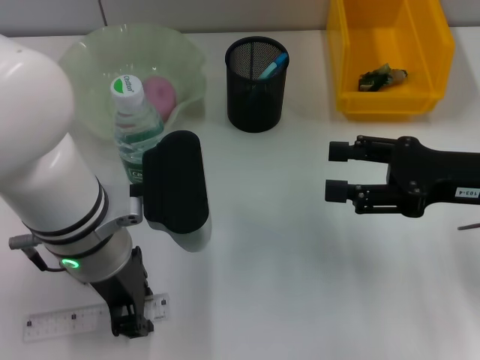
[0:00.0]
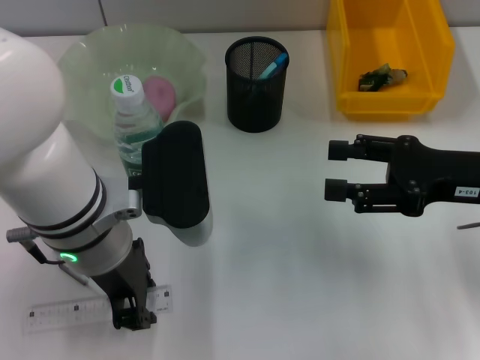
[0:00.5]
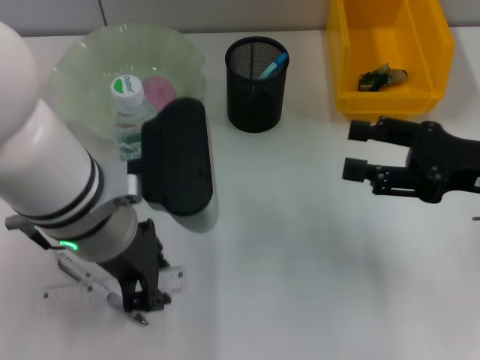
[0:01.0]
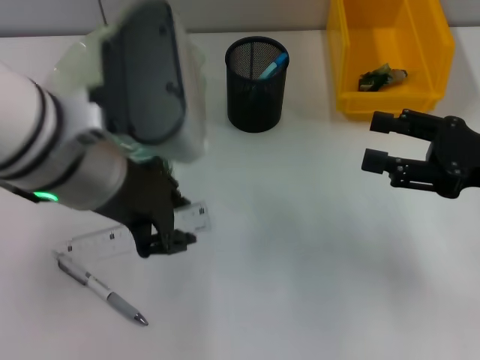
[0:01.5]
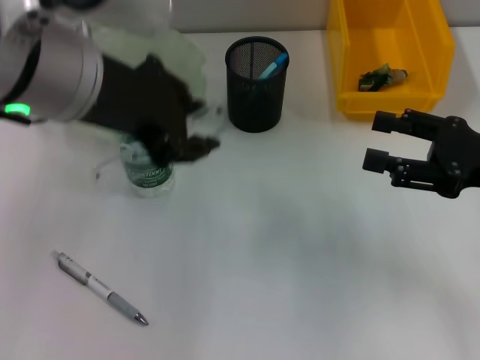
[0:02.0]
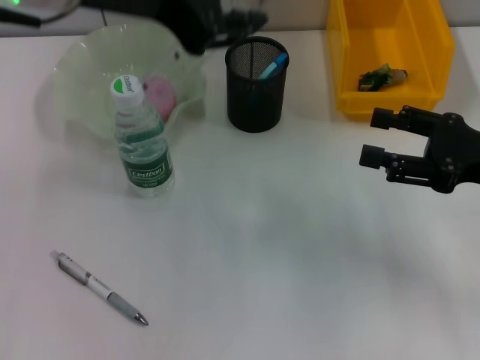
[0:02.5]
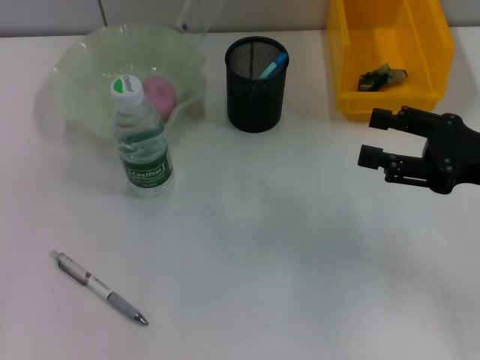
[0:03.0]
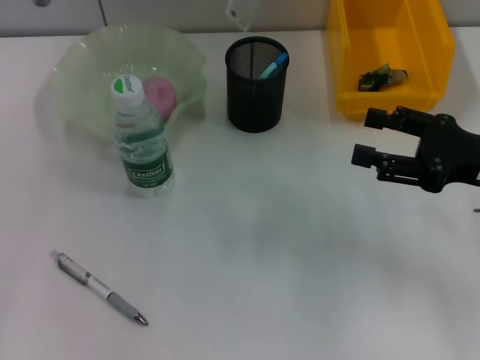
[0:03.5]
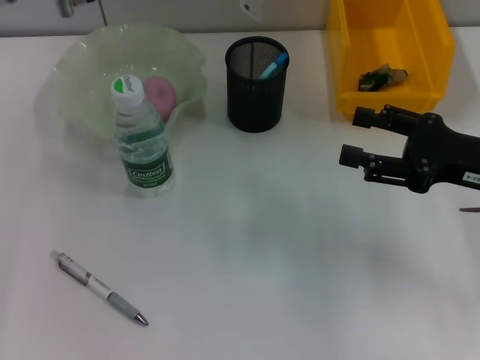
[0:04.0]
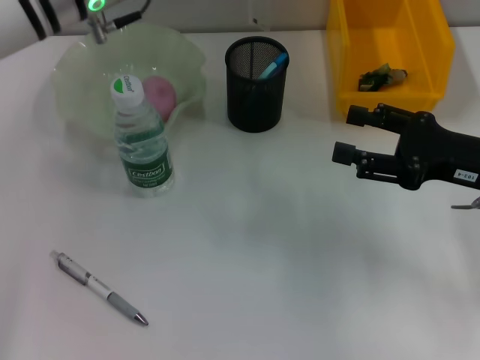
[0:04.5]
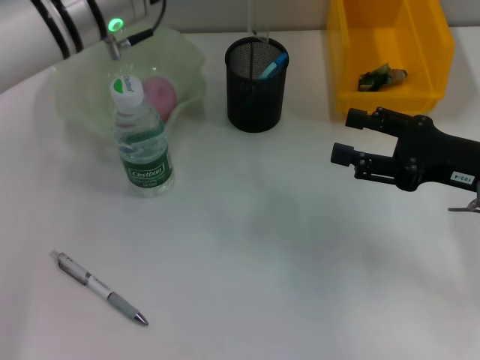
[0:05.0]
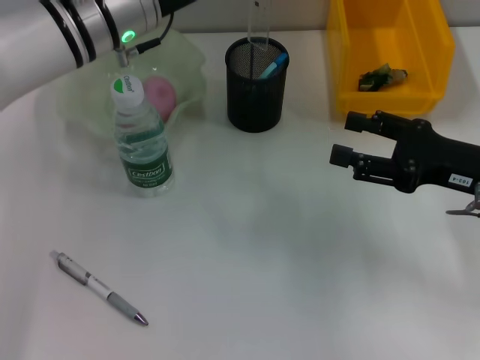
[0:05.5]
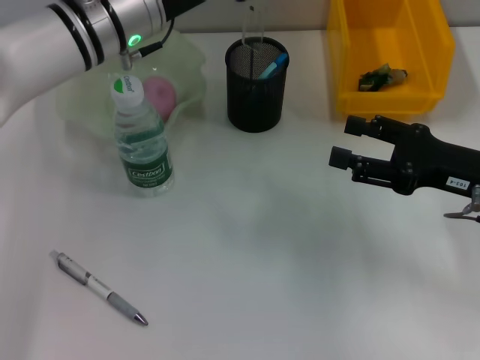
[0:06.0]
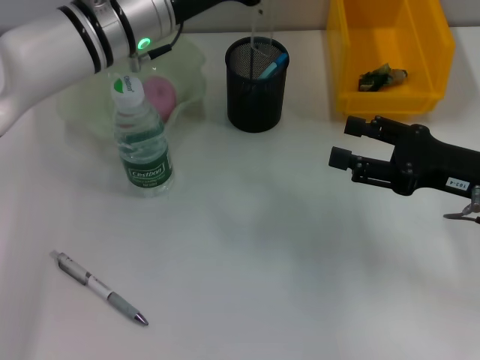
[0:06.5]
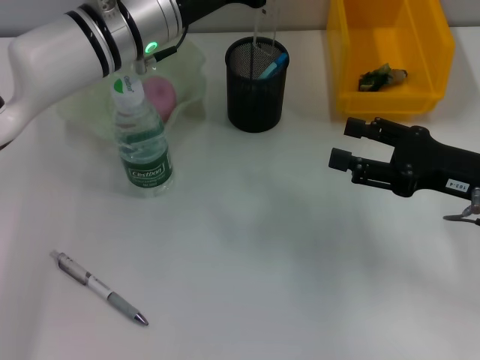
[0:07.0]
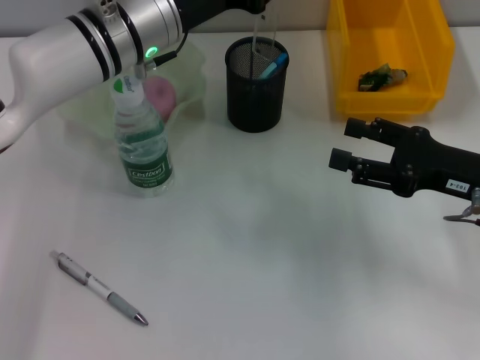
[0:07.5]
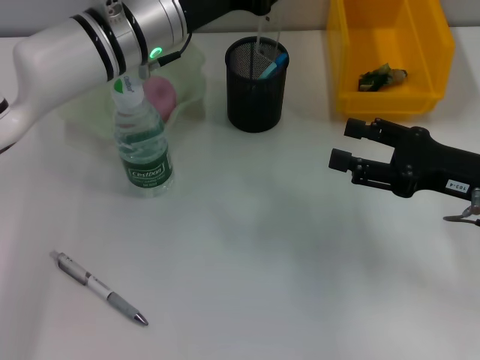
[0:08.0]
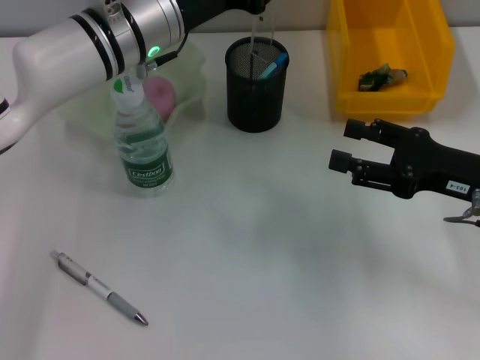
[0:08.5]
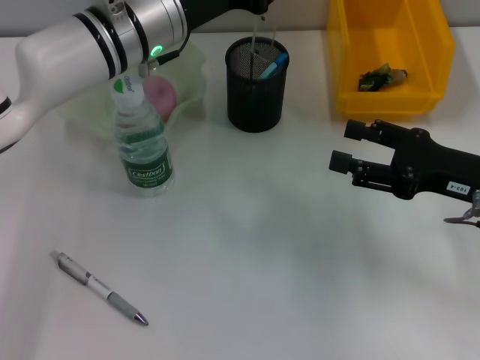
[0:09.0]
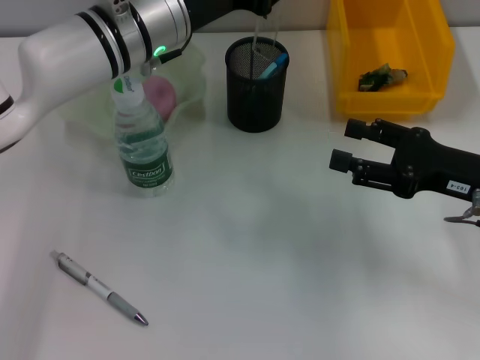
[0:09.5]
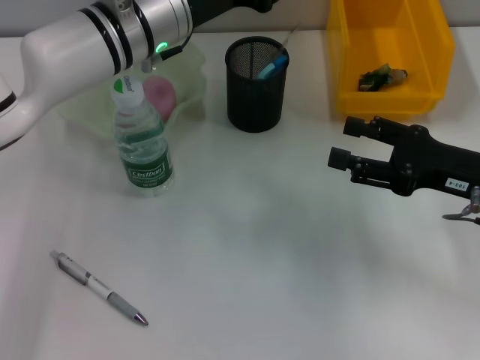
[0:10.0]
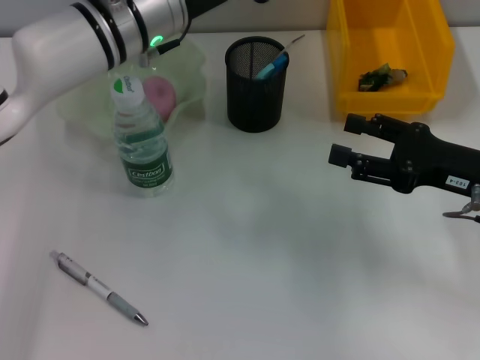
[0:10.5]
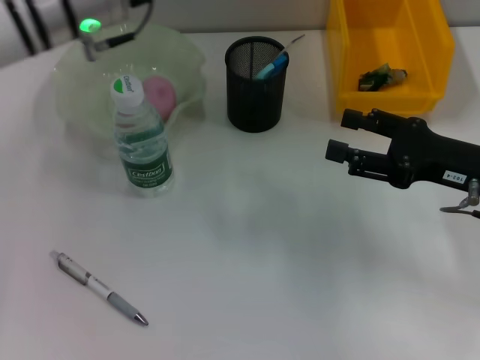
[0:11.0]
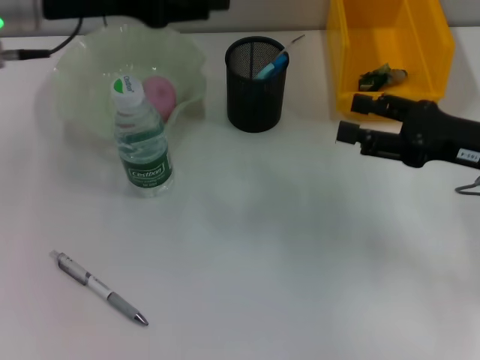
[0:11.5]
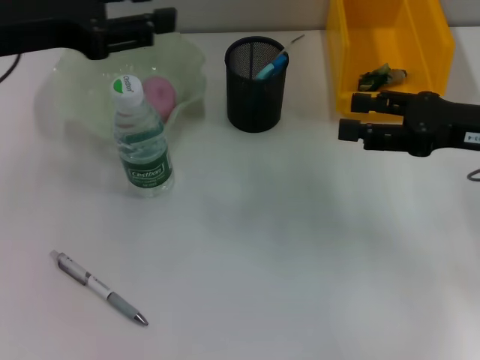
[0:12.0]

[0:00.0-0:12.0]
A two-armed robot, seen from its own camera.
Step, 0.5 to 10.5 s: Place the ruler into the pen holder with the left hand.
0.0 to 2.0 s: The left gripper shifts some 15 cm upward.
2.0 to 4.0 s: The left gripper moves forward, some 10 cm.
4.0 to 6.0 s: The left gripper goes about 10 cm downward.
6.0 to 8.0 s: The grippers make only small movements.
8.0 to 10.0 s: Both grippers stay put.
10.0 to 12.0 s: The right gripper goes some 5 cm upward. Meanwhile the left gripper travels to the left, backward and upward by about 20 cm.

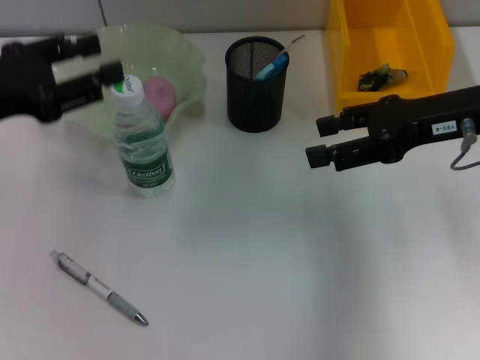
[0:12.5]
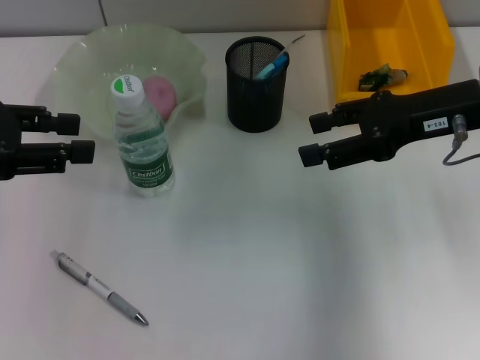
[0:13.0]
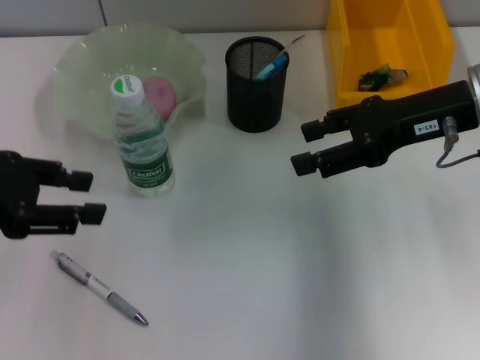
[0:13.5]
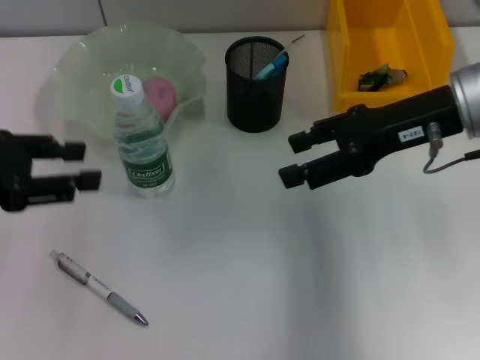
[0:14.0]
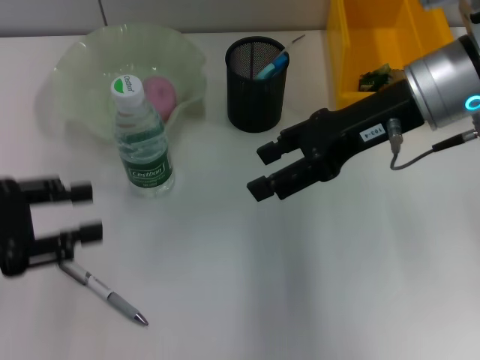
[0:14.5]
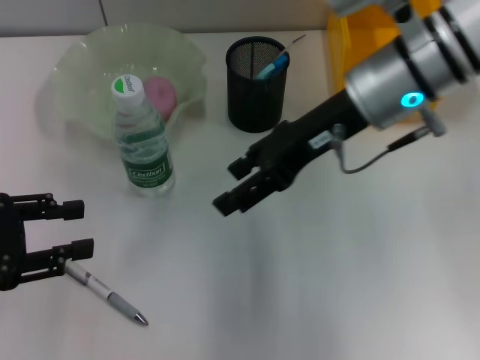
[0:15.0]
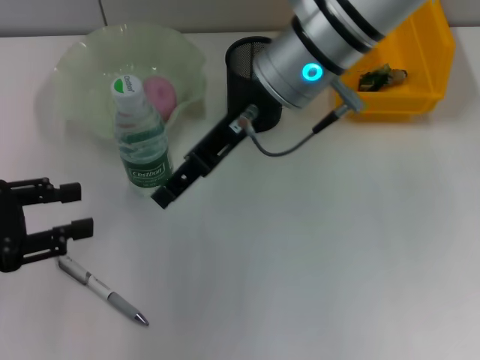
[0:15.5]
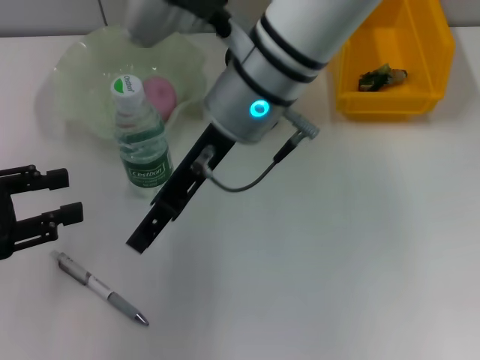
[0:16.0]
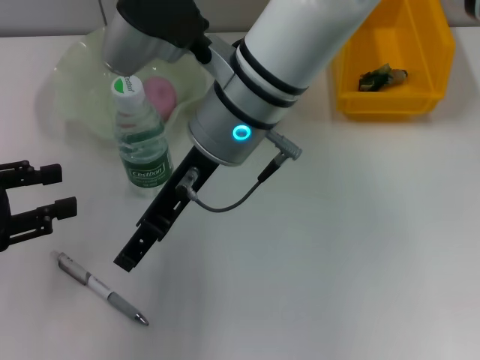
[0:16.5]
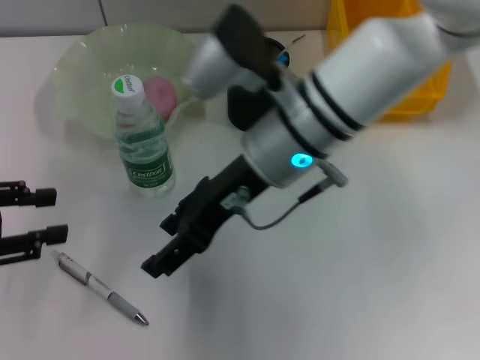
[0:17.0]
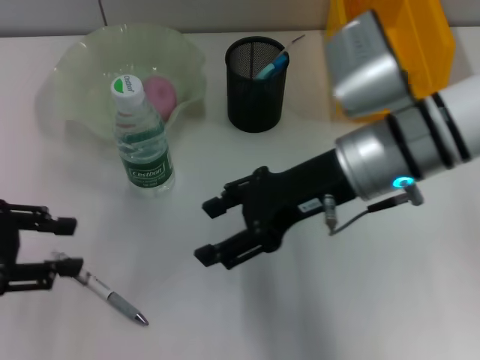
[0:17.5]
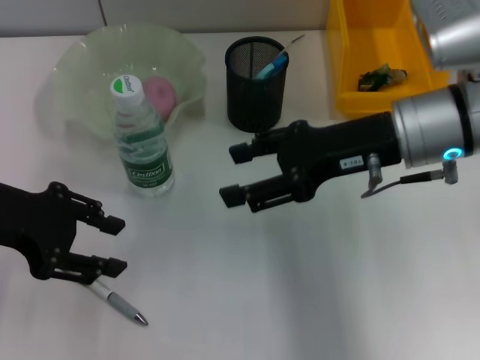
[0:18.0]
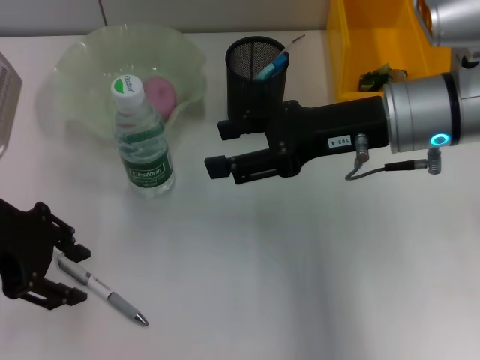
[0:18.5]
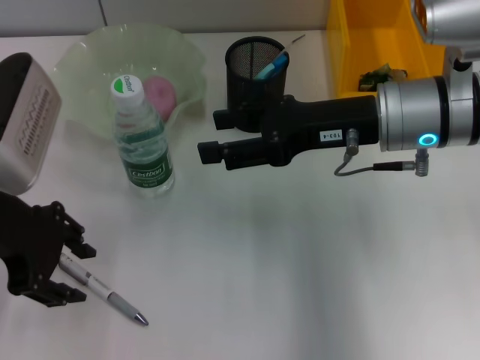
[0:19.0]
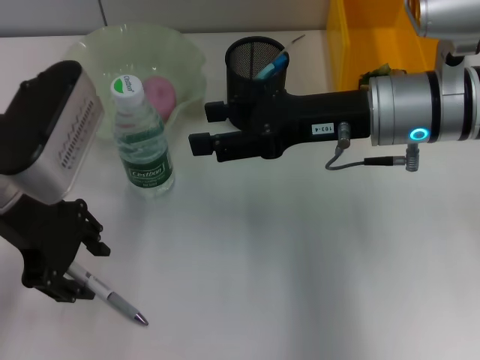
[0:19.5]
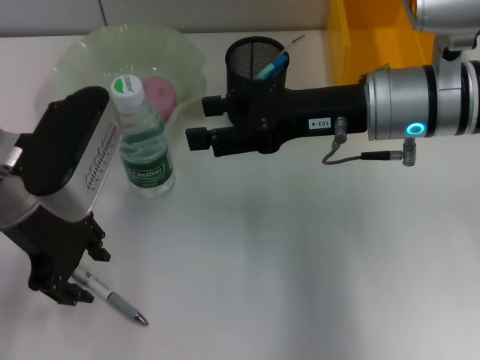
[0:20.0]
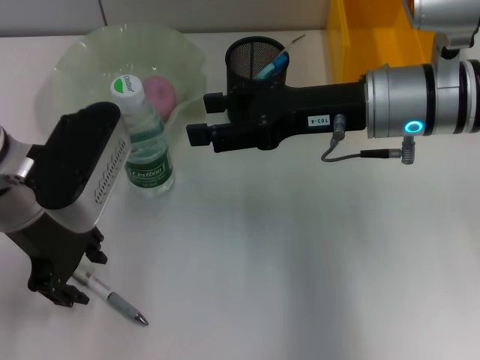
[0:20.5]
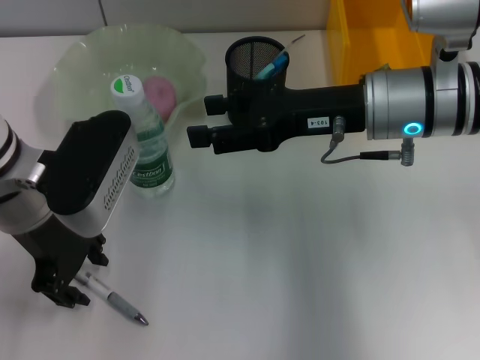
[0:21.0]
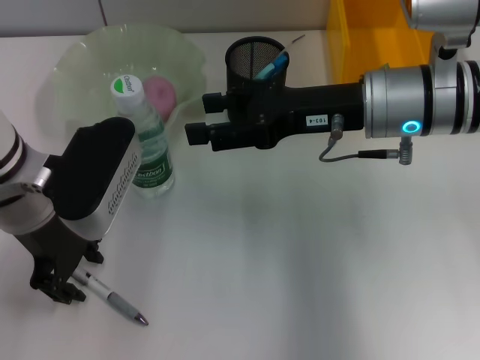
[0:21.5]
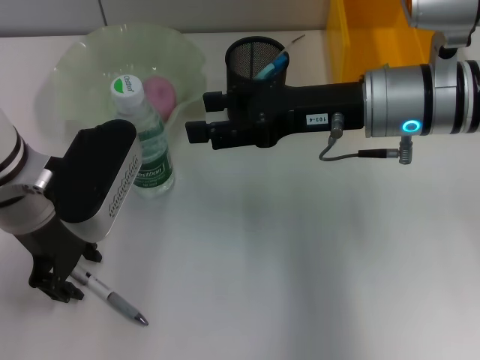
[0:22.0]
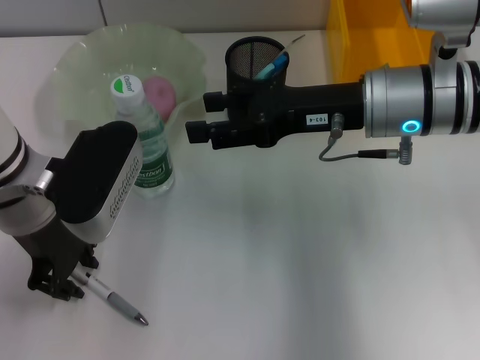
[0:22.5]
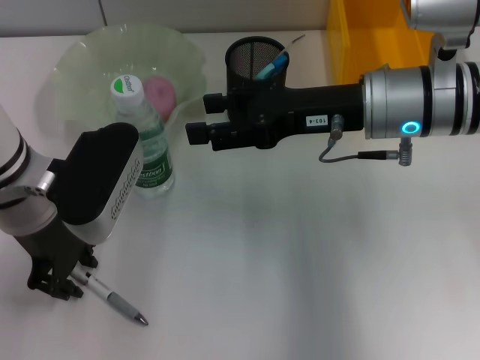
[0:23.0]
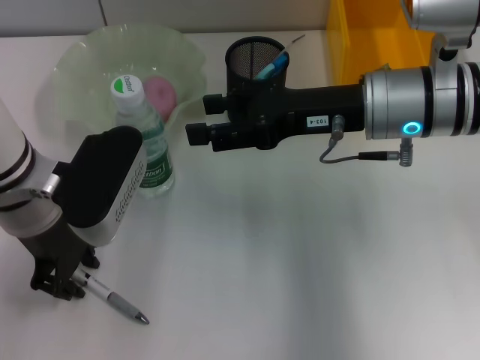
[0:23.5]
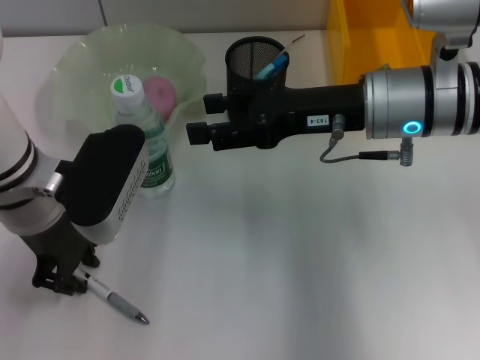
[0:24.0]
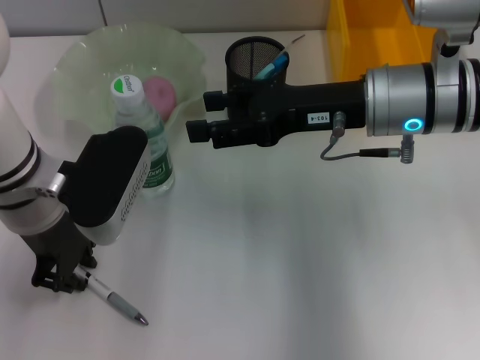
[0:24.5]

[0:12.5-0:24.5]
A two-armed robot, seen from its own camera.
12.5 to 14.5 s: The left gripper is displaced backward by some 5 cm. The right gripper travels to the left by roughly 5 cm.
14.5 to 16.5 s: The right gripper shifts roughly 20 cm to the left.
16.5 to 18.5 s: The right gripper heads to the right, covering about 15 cm; the left gripper heads to the right, upward and forward, covering roughly 10 cm.
18.5 to 20.5 s: The left gripper travels to the right by some 5 cm.
20.5 to 22.5 s: The grippers make only small movements.
22.5 to 24.5 s: Both grippers stay put.

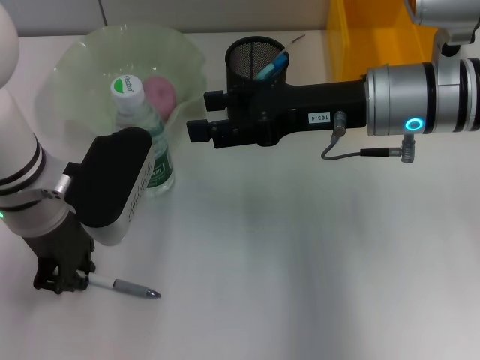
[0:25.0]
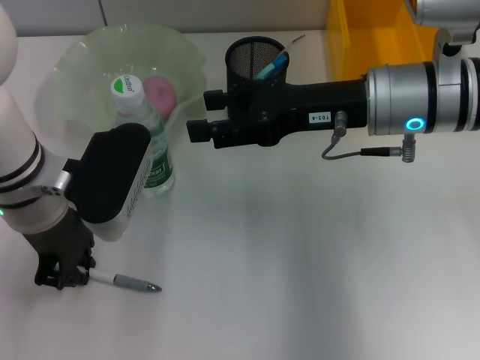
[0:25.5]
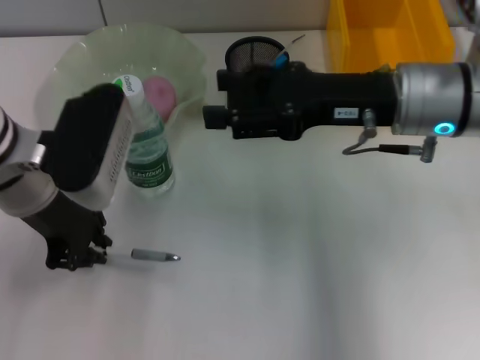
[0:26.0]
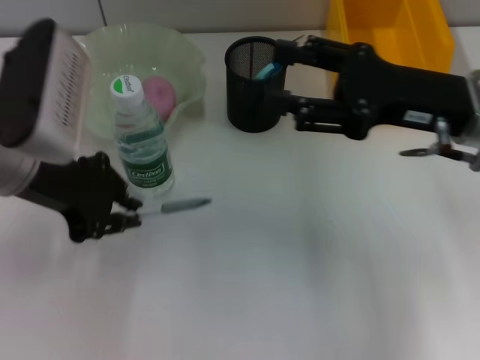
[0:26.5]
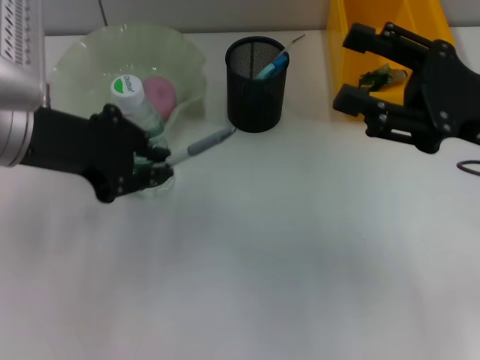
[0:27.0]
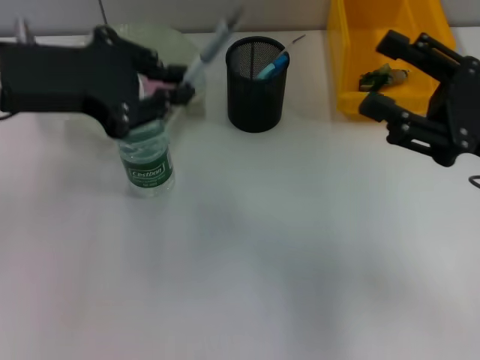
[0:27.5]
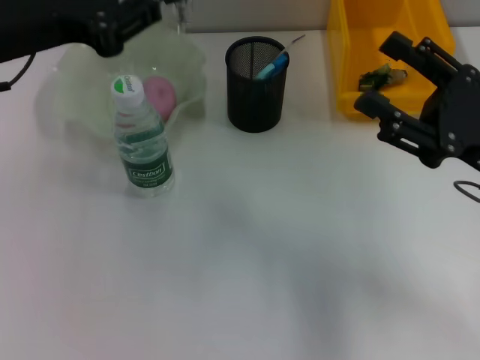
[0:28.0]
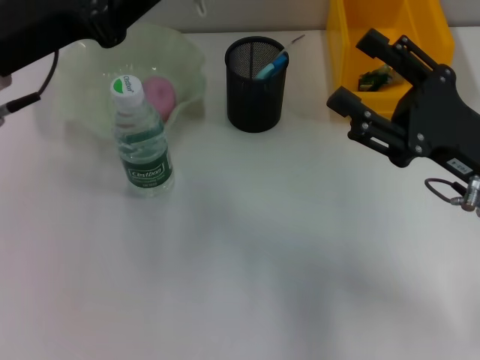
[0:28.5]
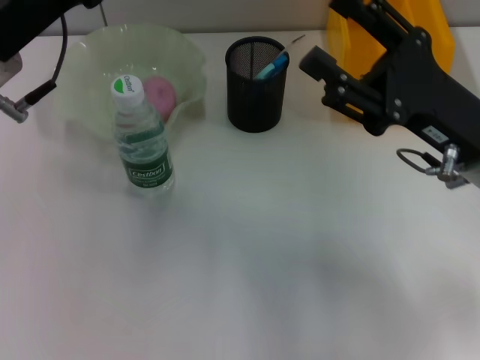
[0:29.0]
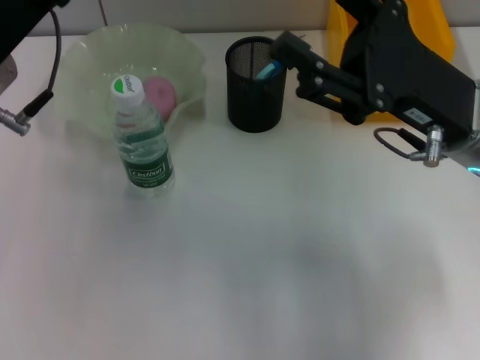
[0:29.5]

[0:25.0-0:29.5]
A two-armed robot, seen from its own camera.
25.0 to 27.0 s: The right gripper moves to the right and backward, about 10 cm. Meanwhile the left gripper shifts roughly 5 cm upward.
27.0 to 29.5 s: The right gripper moves to the left, approximately 5 cm.
